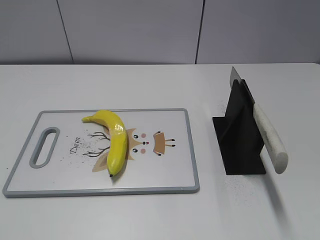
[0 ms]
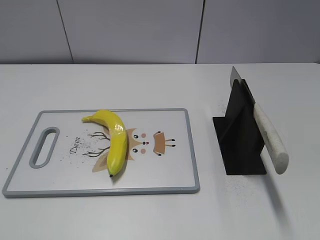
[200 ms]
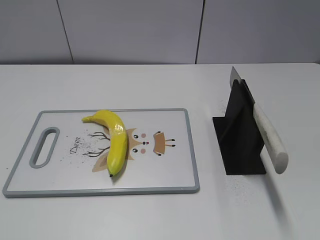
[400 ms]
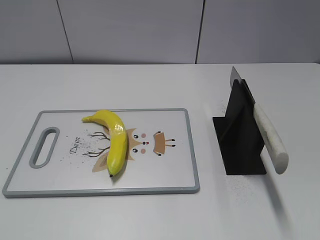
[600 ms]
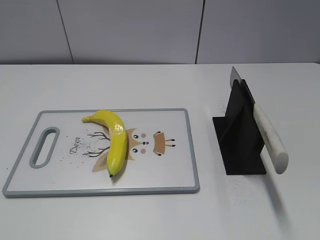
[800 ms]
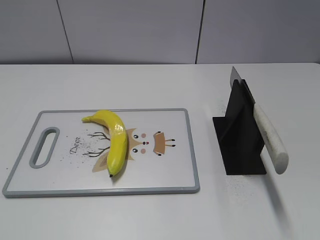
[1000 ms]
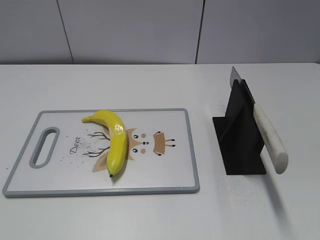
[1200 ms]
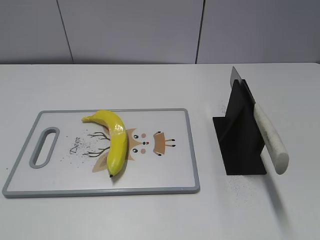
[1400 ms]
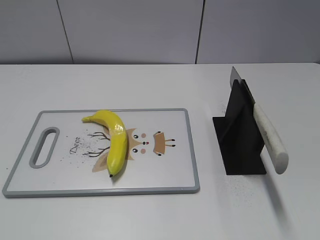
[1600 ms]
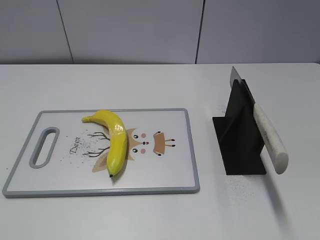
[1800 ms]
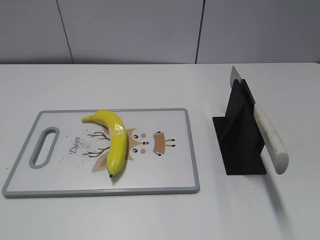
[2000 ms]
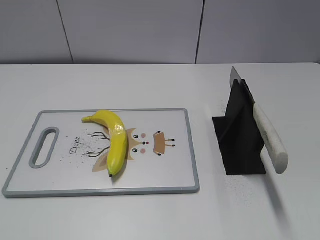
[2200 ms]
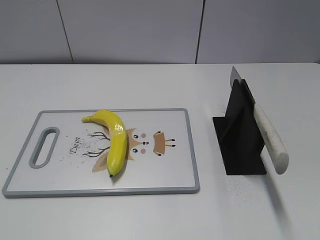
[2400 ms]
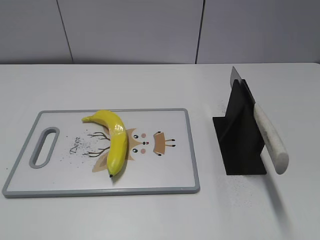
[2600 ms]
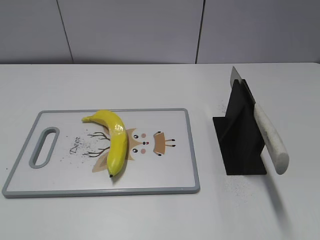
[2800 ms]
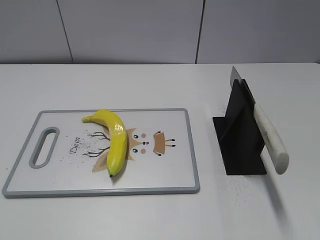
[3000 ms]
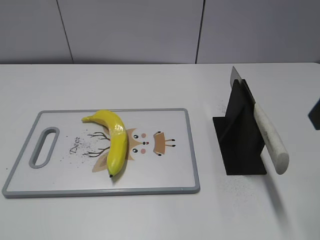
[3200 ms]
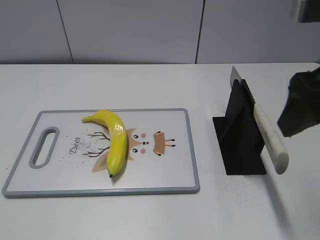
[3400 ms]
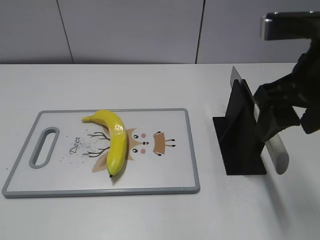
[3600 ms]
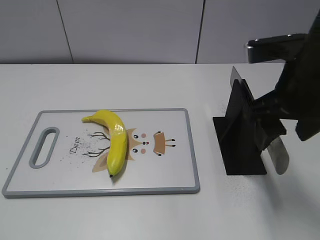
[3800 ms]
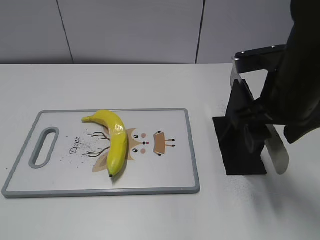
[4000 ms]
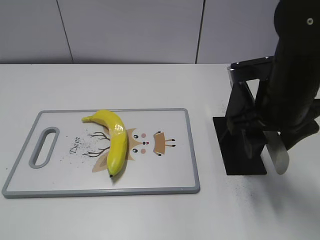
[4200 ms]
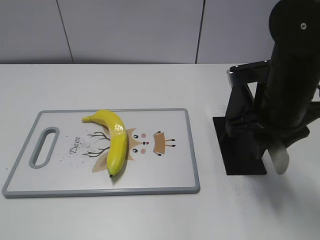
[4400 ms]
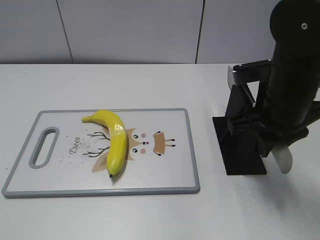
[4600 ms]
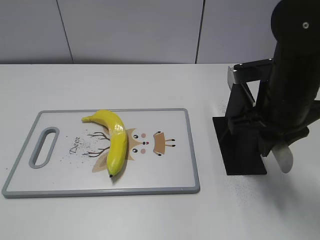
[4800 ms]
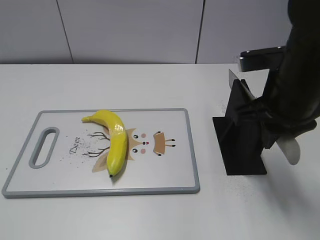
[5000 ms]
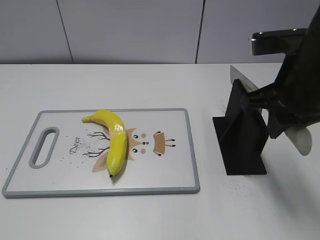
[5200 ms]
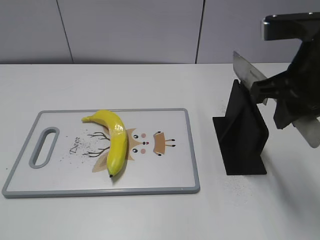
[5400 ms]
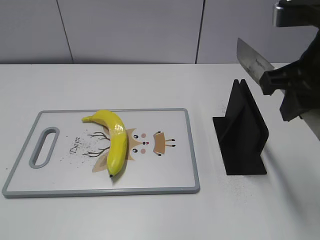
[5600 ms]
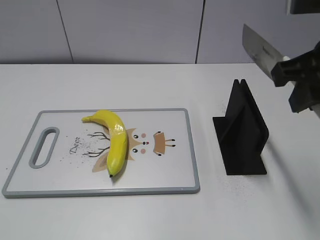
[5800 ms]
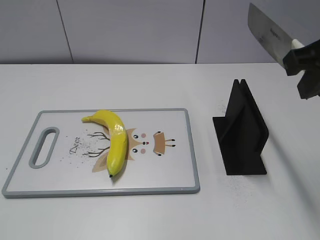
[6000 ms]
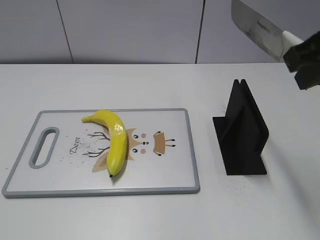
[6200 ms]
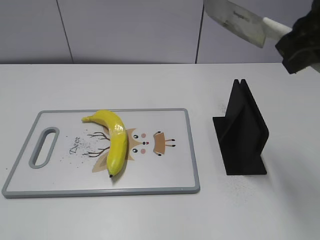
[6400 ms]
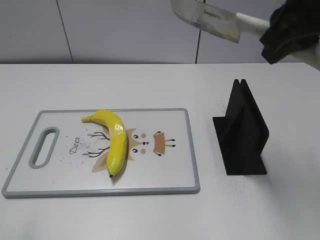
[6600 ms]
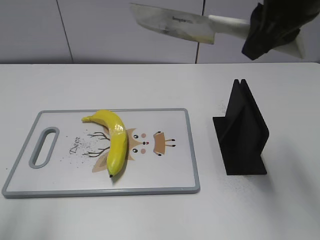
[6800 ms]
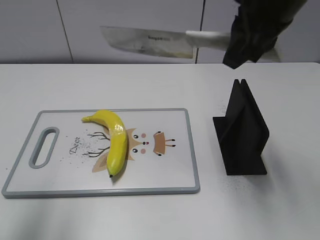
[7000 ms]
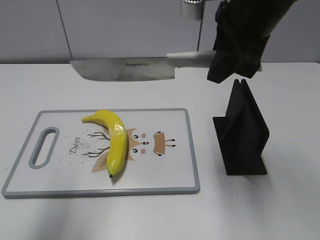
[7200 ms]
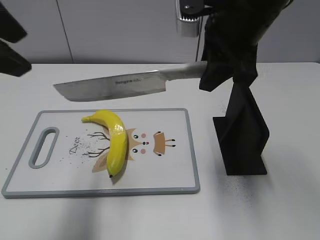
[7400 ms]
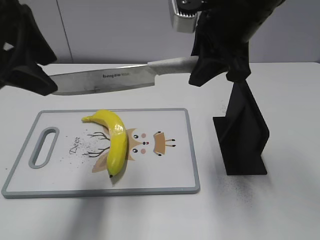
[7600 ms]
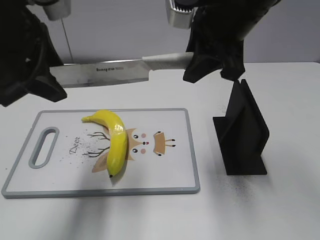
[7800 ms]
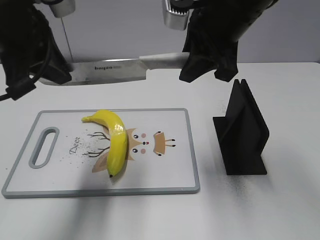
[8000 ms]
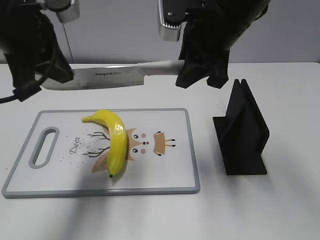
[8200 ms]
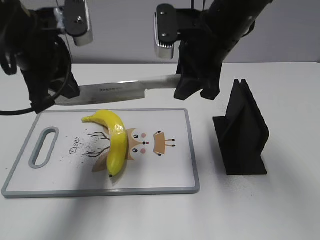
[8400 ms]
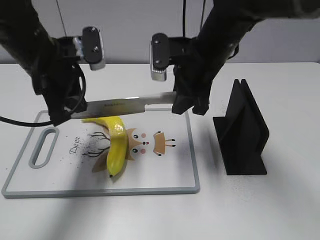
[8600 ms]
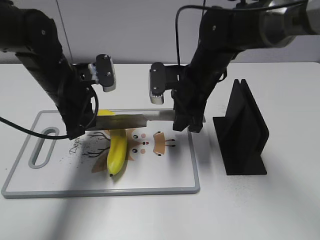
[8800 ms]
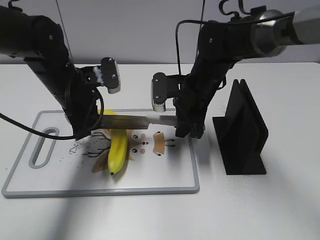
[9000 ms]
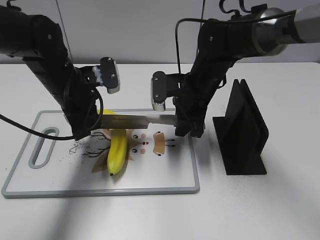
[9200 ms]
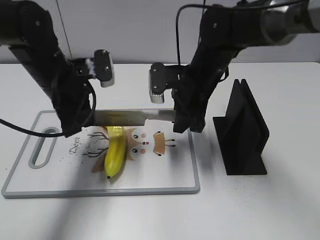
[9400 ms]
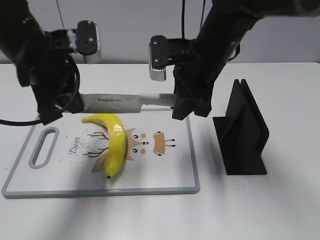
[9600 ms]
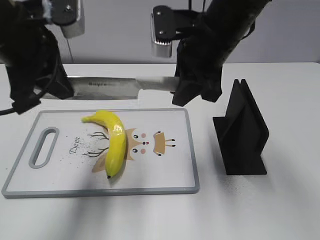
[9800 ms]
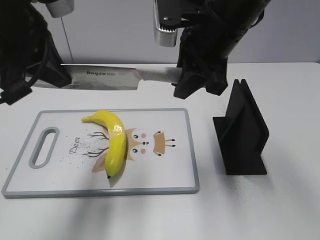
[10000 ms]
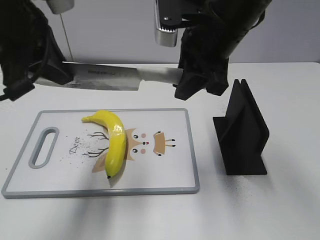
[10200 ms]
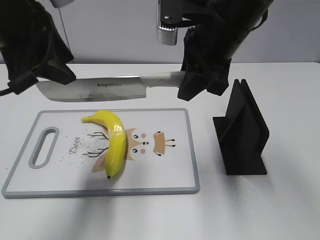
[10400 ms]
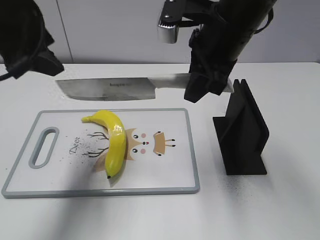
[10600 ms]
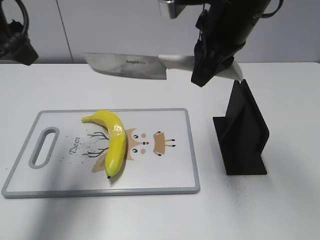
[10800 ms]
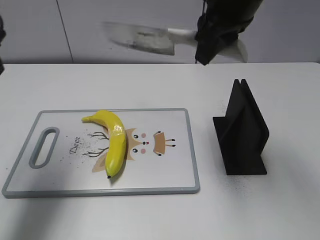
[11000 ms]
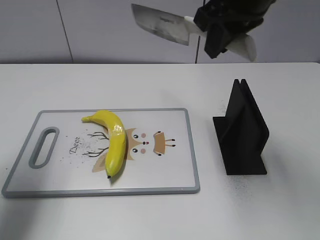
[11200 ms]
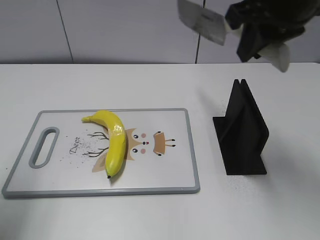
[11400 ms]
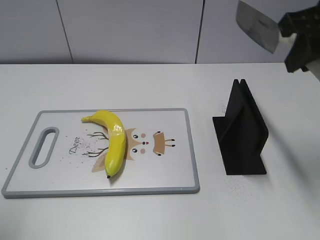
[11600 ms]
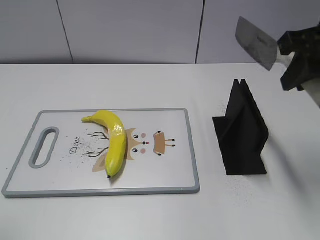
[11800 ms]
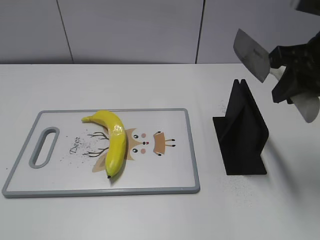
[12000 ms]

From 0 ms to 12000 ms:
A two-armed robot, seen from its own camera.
Task of the whole recording: cut plastic banana.
Step, from 0 ms to 5600 ms: Grab the knife handle with your right hand.
Step, from 6000 ms to 10200 ms: Lift the knife with your right hand.
Step, from 10400 ms to 11200 ms: Cut the banana with your right hand.
From 3000 ms to 4400 ms: The right gripper is displaced downward, forward and to the left by approximately 20 cm, and closes.
From 4400 ms to 6000 ms: The right gripper is displaced upward by roughly 10 cm.
From 6000 ms to 7600 ms: The left gripper shifts approximately 25 cm forward and to the right, while the right gripper moves to the left and forward, roughly 15 cm.
From 7600 ms to 9000 ms: The right gripper heads downward, covering some 20 cm, while the left gripper goes about 20 cm downward and forward, and closes up.
From 9000 ms to 10400 ms: The left gripper shifts some 20 cm upward and backward, and opens up. The right gripper shifts roughly 15 cm upward.
From 10400 ms to 12000 ms: The left gripper moves backward and to the left, about 25 cm; the right gripper heads to the right and backward, covering approximately 15 cm.

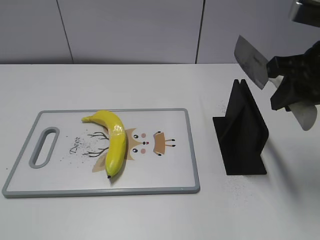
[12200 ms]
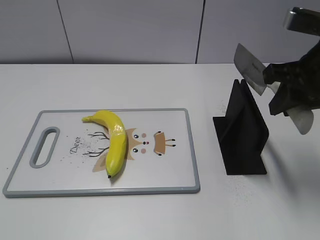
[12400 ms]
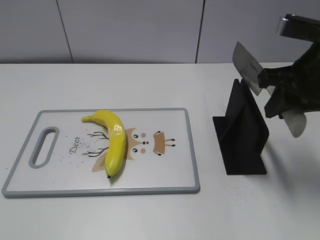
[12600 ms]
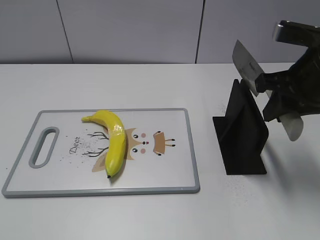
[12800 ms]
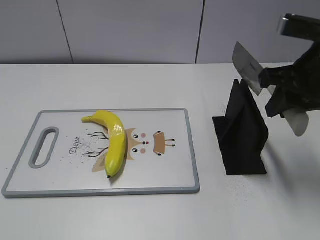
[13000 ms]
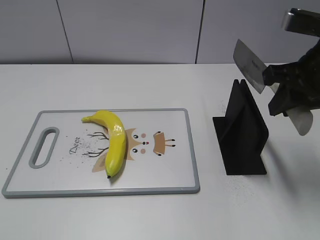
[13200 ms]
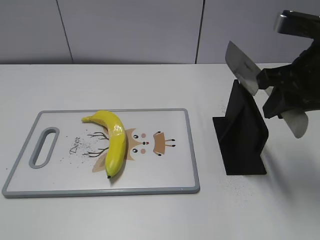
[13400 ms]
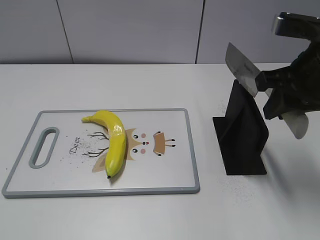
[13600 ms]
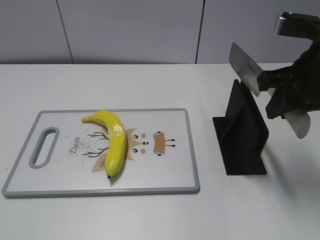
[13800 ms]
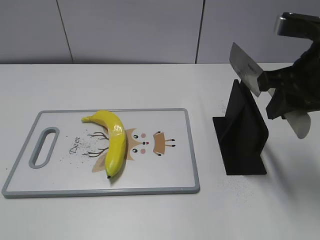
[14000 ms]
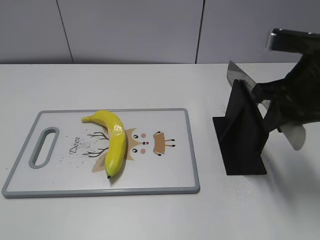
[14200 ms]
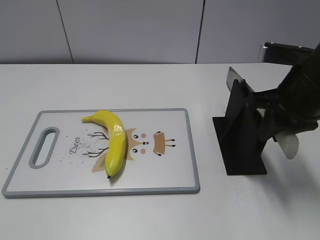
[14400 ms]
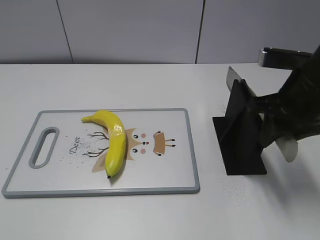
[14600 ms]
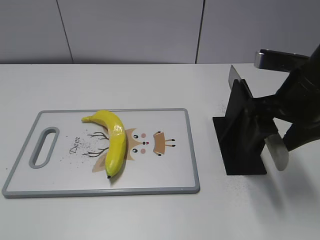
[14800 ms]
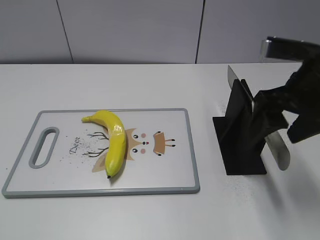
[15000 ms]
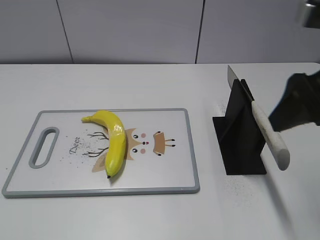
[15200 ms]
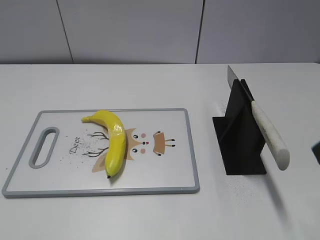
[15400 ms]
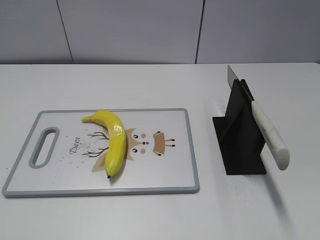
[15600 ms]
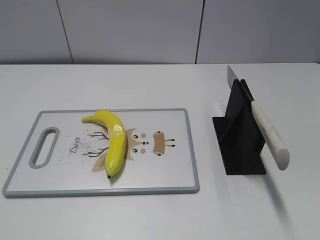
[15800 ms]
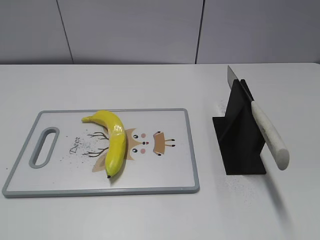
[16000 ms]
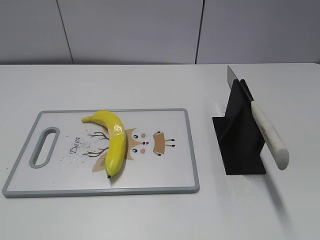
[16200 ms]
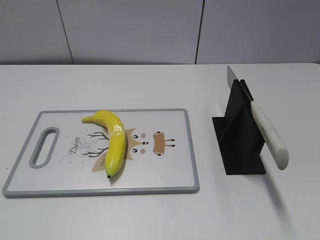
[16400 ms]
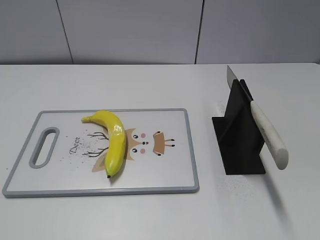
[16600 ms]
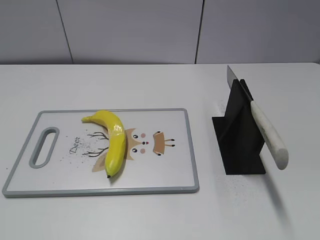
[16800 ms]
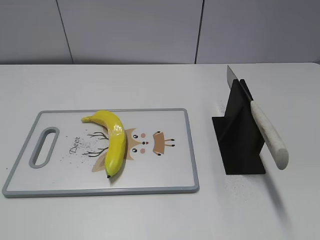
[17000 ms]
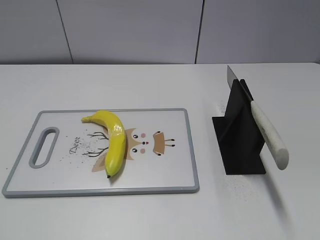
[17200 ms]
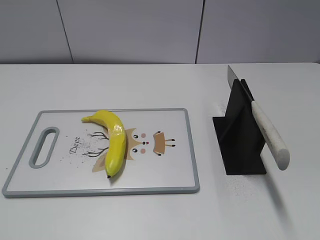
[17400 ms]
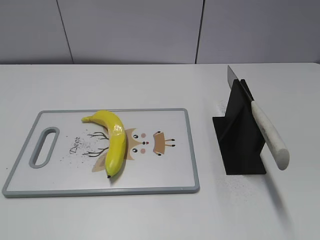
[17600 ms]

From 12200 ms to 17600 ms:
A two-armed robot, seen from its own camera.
Task of the whole recording: cut plastic banana.
Step, from 12600 ms to 17600 ms: Place the knife on the storage rack with your right hand.
From 12200 ms to 13600 ms: The grippers move only a little.
From 13600 ms to 15000 ms: The right gripper opens up.
From 15000 ms to 16200 ms: The right gripper heads backward, covering approximately 25 cm.

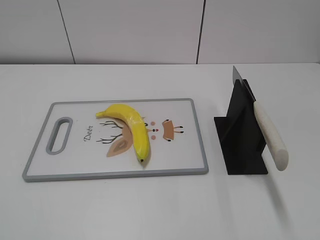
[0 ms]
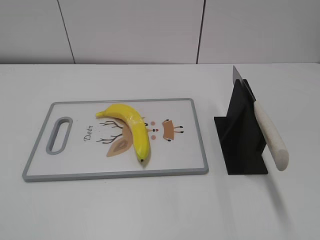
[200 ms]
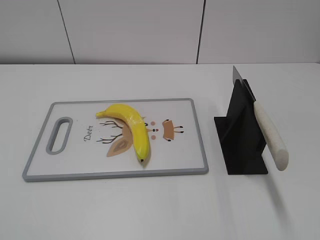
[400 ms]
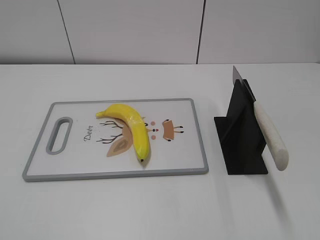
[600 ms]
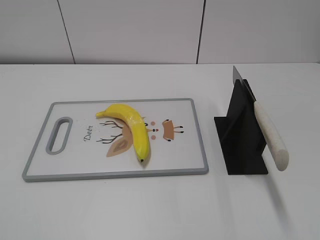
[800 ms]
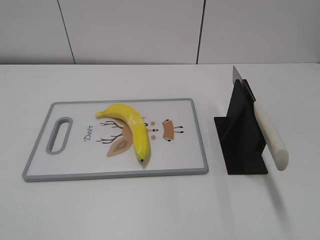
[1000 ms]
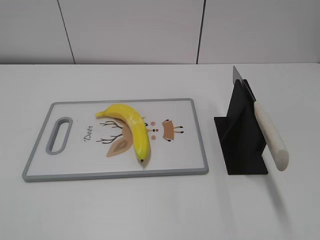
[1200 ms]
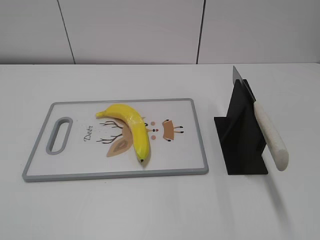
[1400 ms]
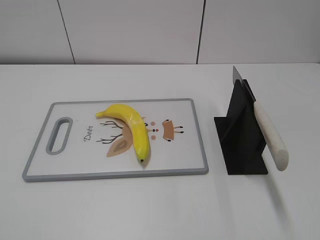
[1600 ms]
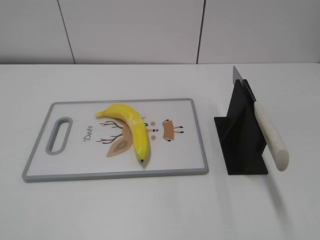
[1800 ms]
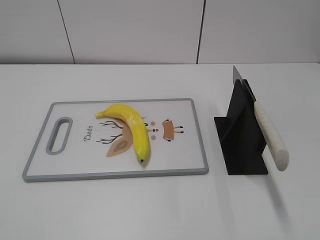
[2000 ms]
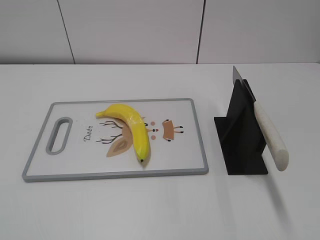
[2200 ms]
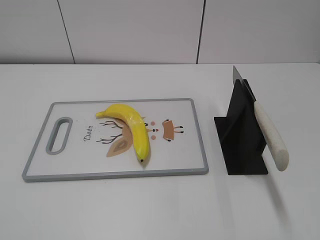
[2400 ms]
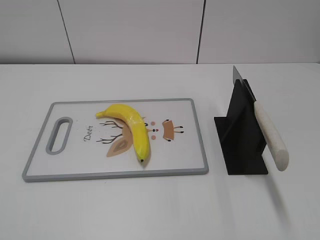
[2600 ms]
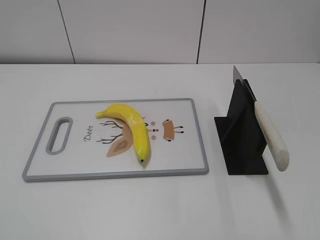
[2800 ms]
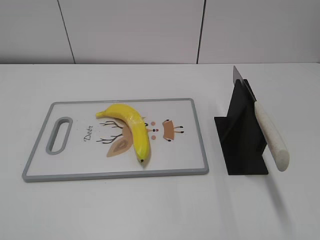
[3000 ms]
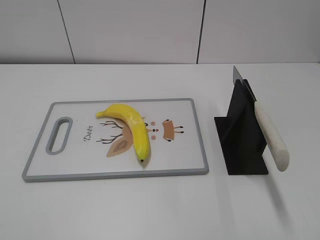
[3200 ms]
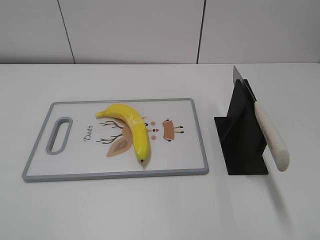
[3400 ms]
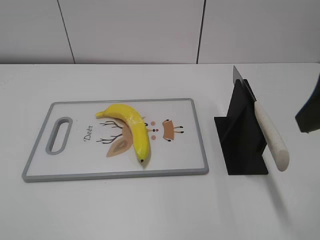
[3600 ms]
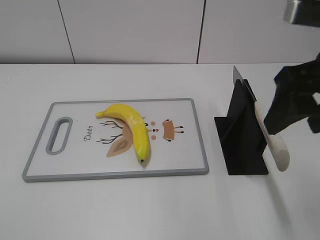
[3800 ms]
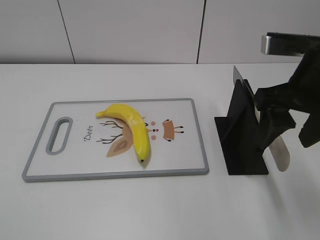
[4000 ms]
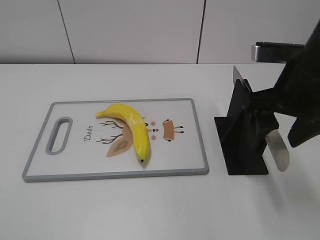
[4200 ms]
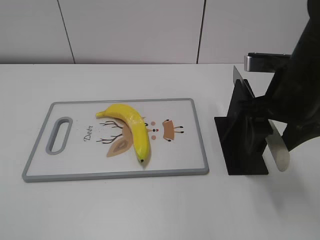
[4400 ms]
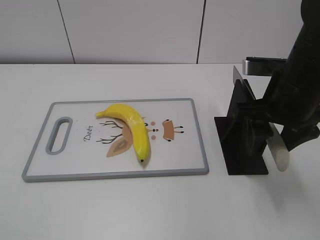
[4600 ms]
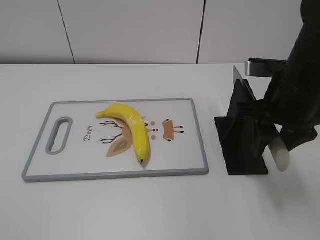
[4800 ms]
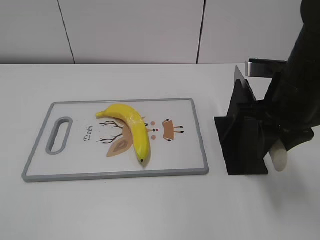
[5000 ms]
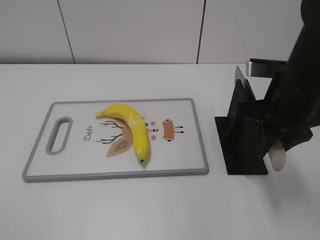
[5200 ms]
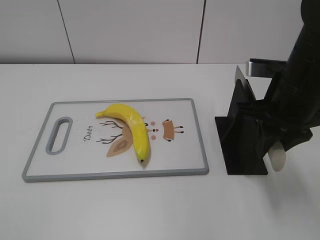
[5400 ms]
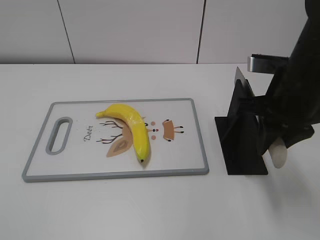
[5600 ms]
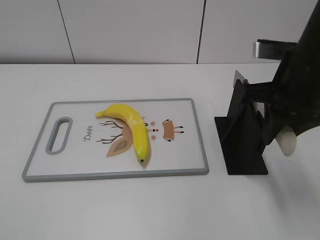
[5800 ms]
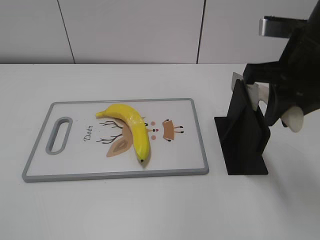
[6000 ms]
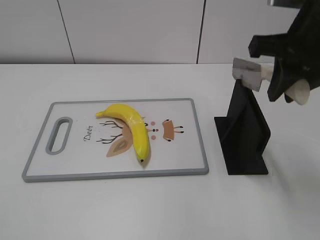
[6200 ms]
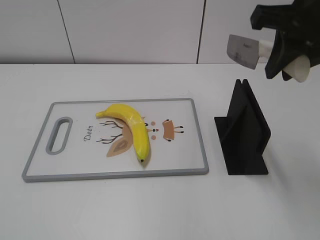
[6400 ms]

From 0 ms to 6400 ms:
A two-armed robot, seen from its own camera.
Task of the whole recording: cut plastic banana.
From 3200 ms to 4800 ms: The right gripper moves forward, downward and to the left, about 20 cm, and closes up.
From 4800 ms to 6400 ms: The right gripper travels upward by some 10 cm, and closes up.
